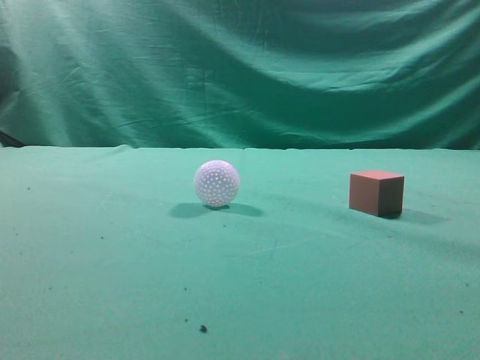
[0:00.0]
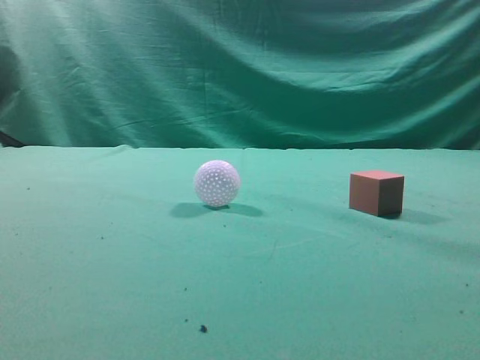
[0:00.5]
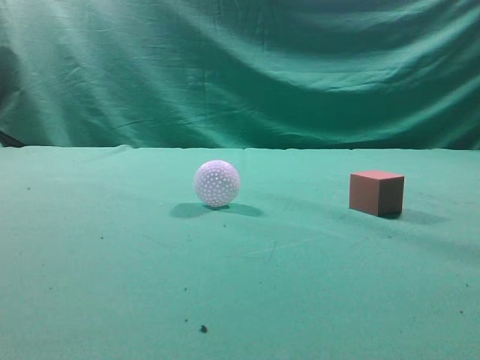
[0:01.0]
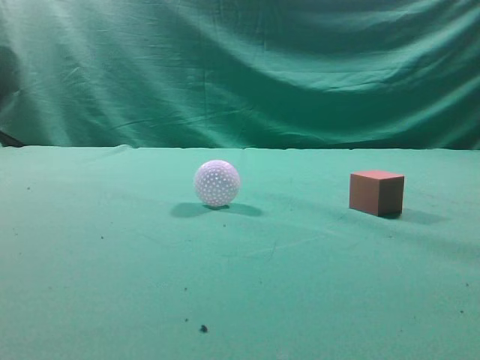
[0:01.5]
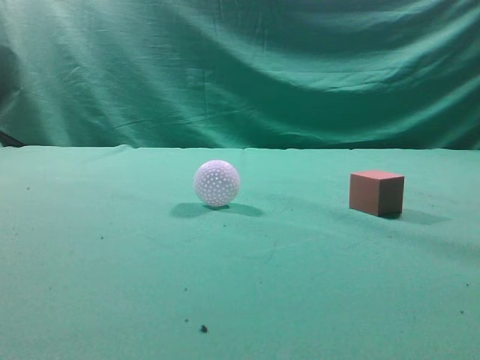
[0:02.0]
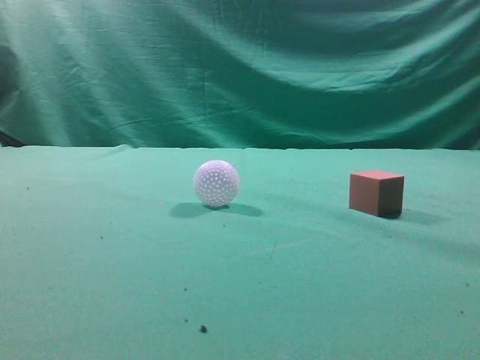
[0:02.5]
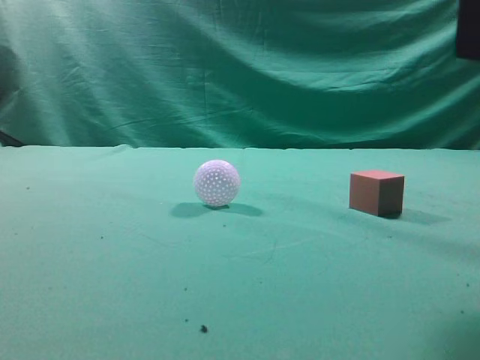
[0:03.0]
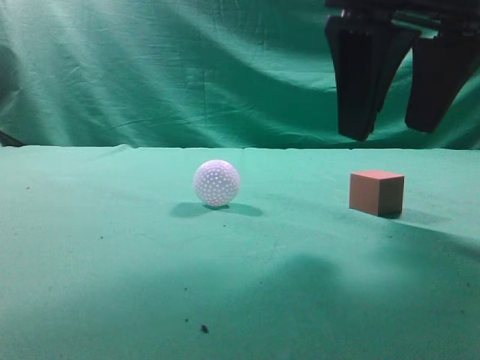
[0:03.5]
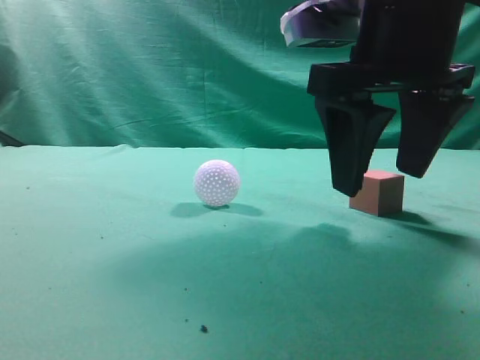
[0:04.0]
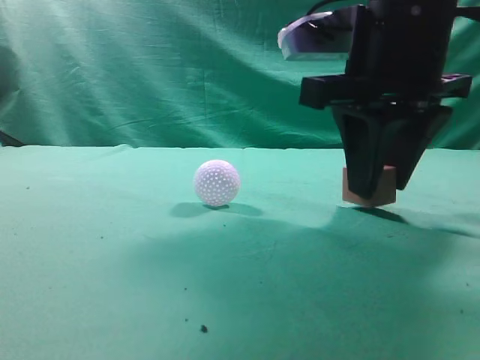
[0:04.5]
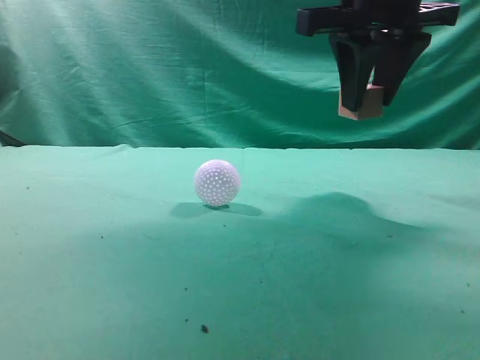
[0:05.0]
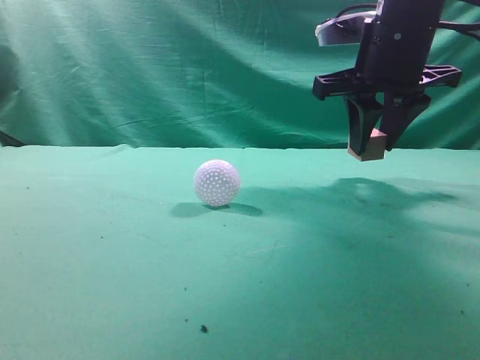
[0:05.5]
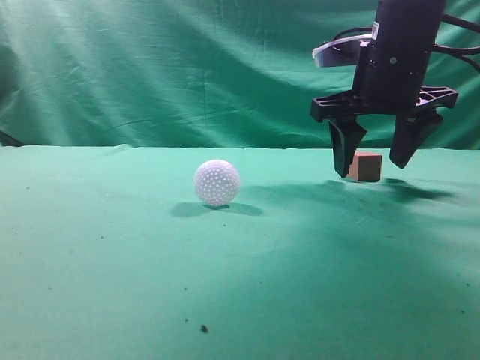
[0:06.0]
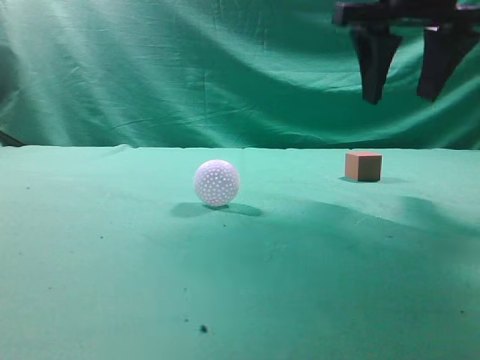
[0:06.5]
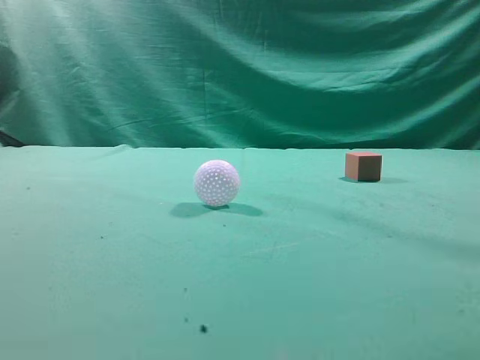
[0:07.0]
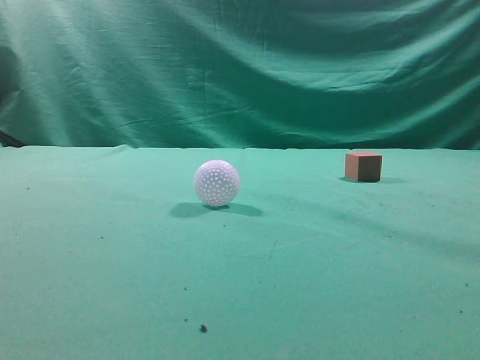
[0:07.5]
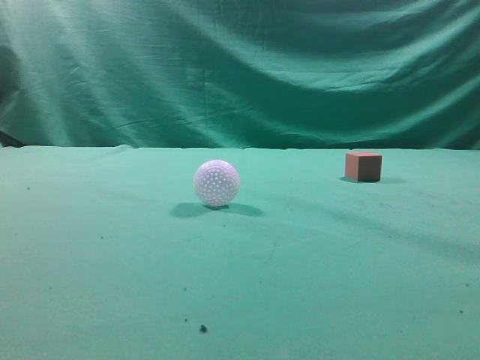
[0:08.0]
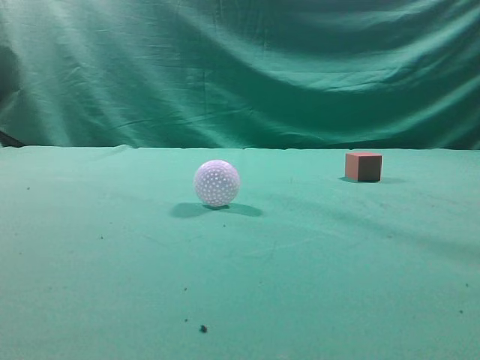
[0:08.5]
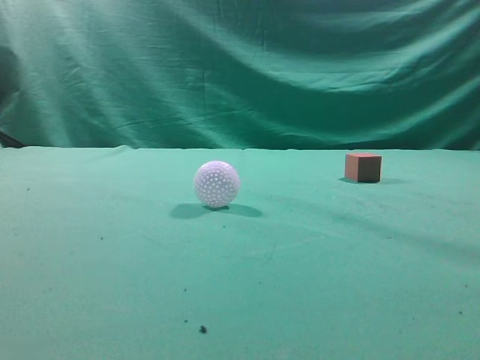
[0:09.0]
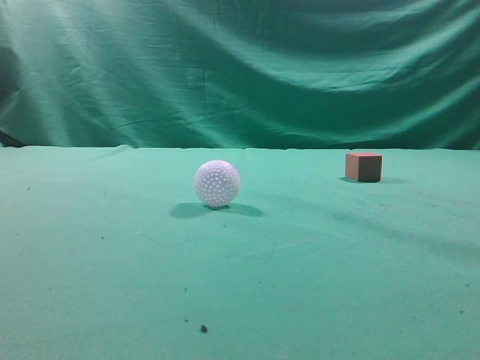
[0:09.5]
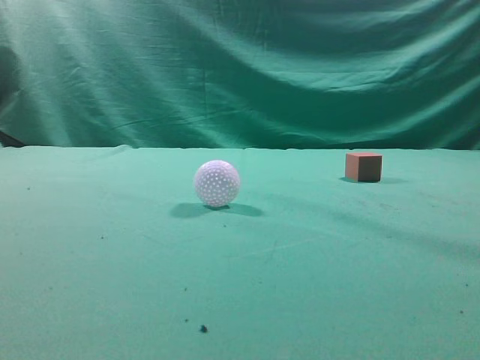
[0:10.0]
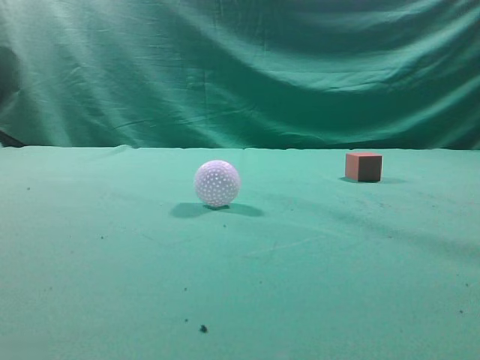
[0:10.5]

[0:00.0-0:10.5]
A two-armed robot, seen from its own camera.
Task of the whole recording: pick up the cube block and place it in another position on the table.
Step, 0:00.0 to 0:04.5: Pick up the small cube.
Step, 0:05.0 to 0:06.0: Place the small cube on the ahead of the table.
0:02.0 to 0:04.0: The right gripper travels forward, to the left and downward by about 30 cm, and opens up.
0:04.0 to 0:06.5: The right gripper is displaced upward and forward by about 10 cm.
0:06.5 to 0:08.5: The right gripper moves backward and to the right, roughly 30 cm, and closes its fingers.
